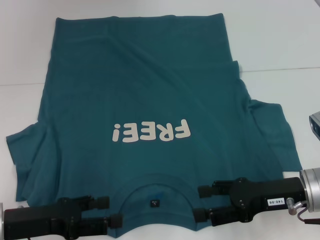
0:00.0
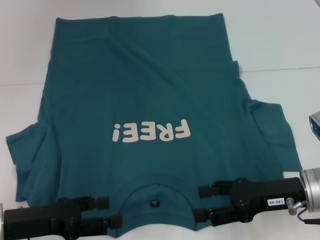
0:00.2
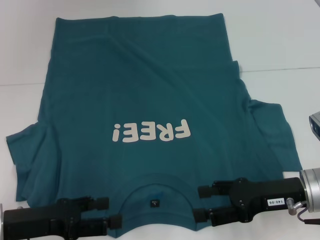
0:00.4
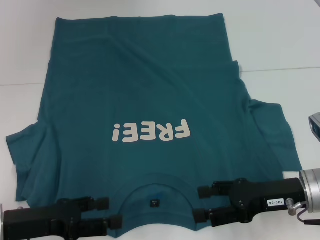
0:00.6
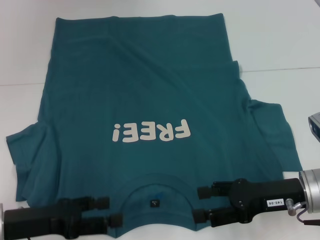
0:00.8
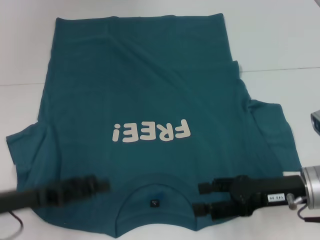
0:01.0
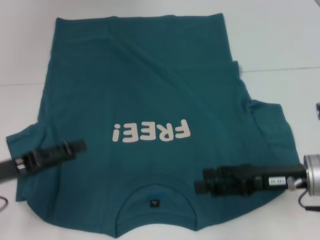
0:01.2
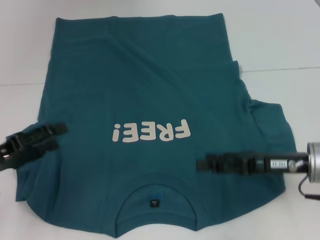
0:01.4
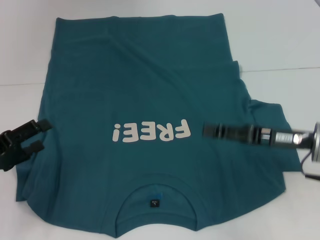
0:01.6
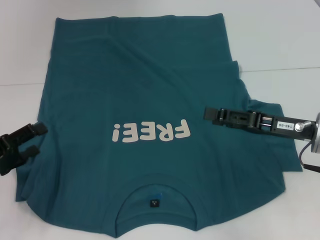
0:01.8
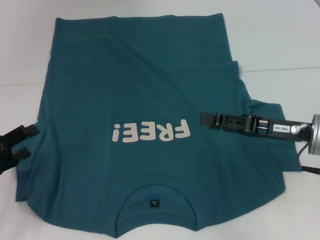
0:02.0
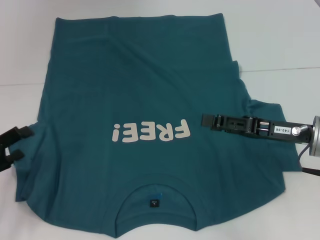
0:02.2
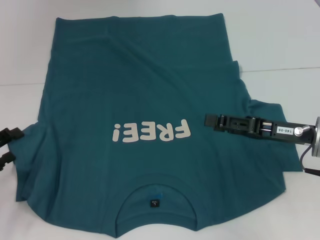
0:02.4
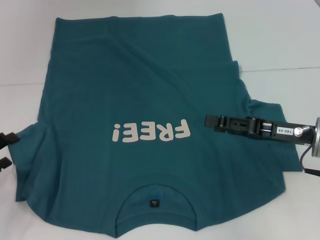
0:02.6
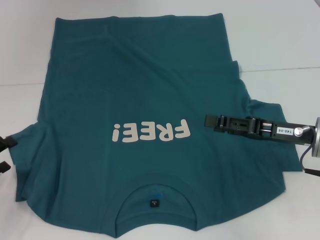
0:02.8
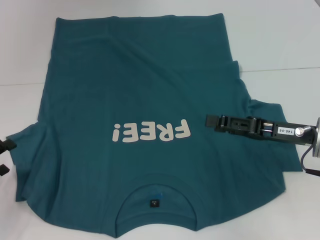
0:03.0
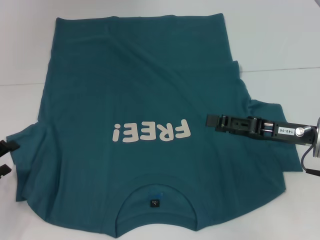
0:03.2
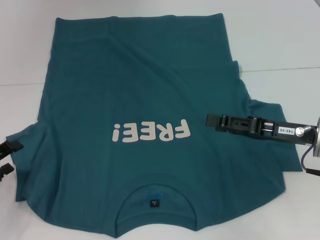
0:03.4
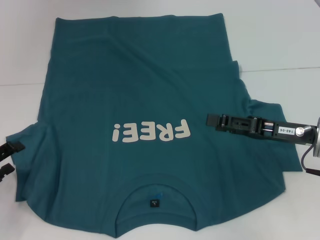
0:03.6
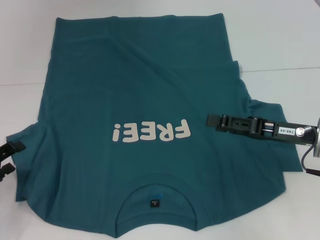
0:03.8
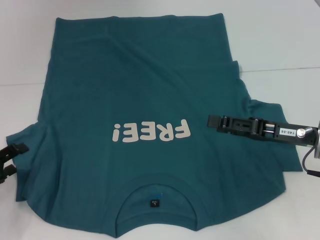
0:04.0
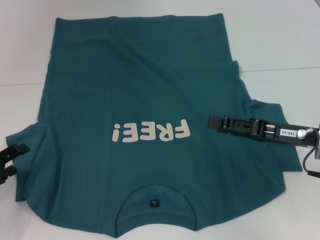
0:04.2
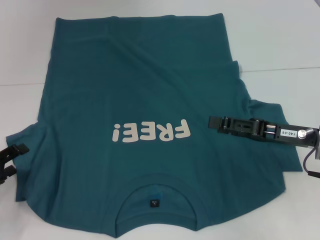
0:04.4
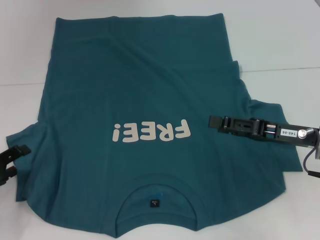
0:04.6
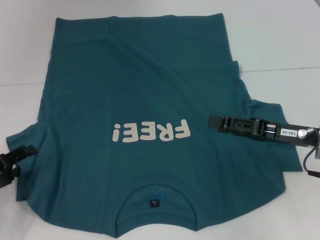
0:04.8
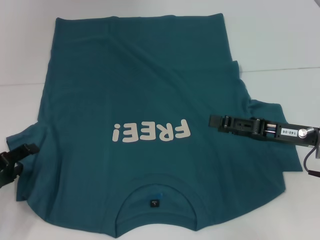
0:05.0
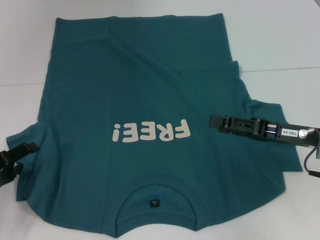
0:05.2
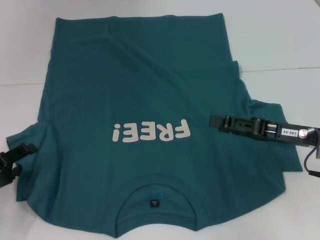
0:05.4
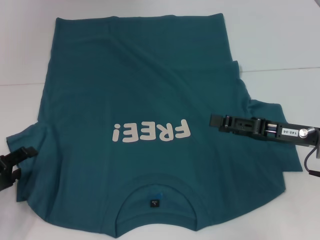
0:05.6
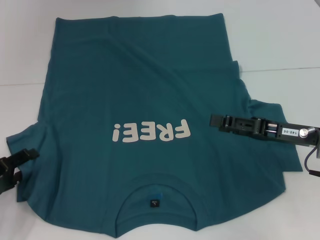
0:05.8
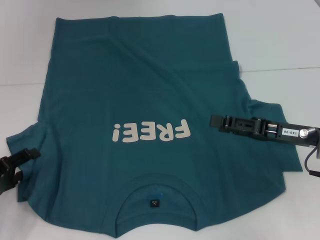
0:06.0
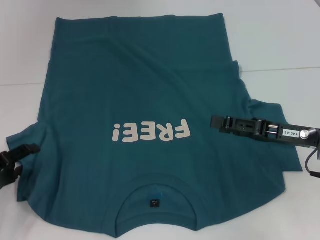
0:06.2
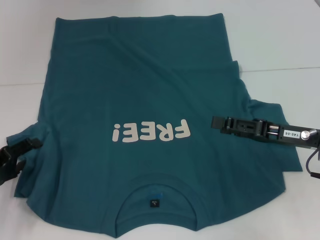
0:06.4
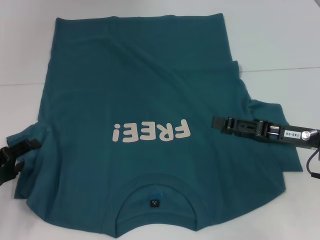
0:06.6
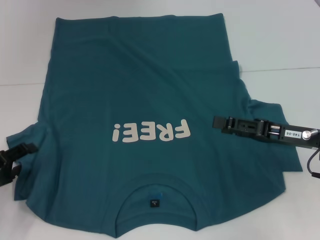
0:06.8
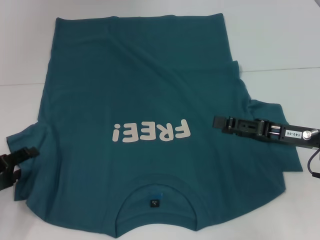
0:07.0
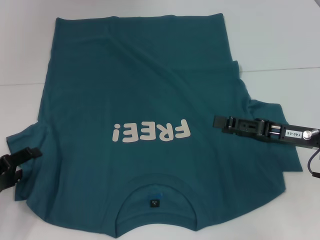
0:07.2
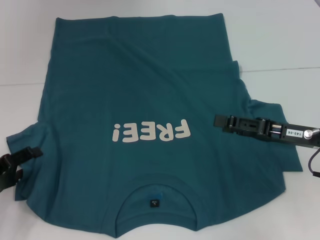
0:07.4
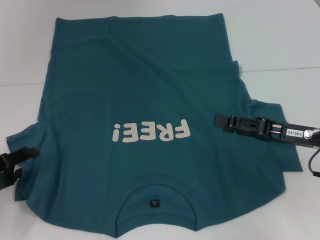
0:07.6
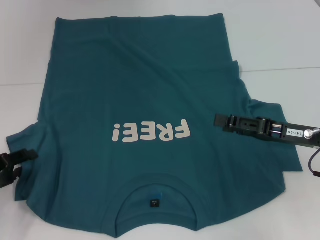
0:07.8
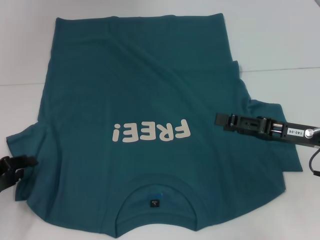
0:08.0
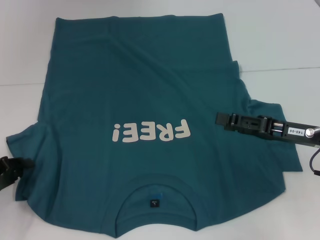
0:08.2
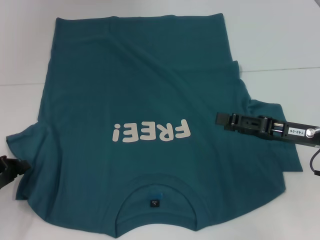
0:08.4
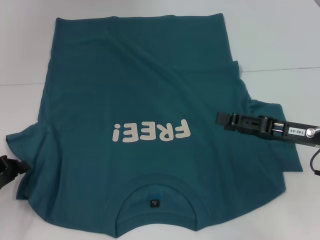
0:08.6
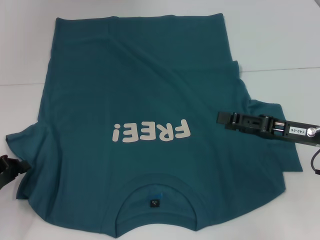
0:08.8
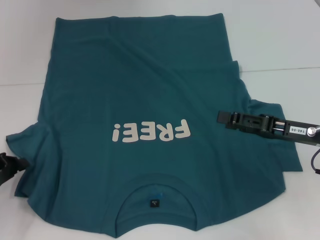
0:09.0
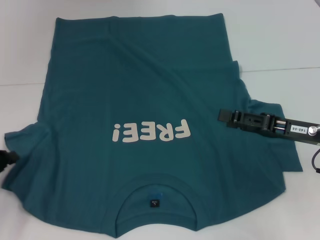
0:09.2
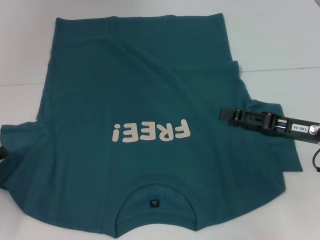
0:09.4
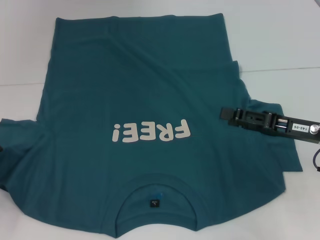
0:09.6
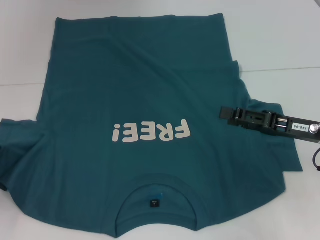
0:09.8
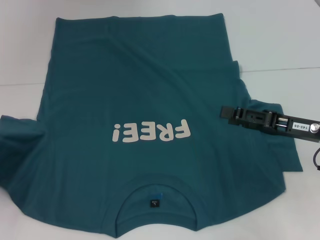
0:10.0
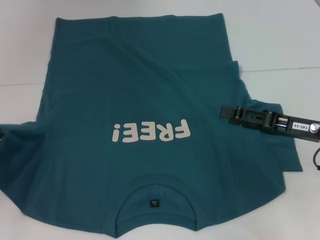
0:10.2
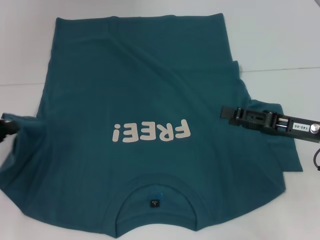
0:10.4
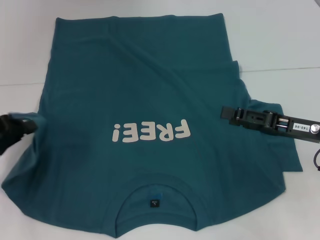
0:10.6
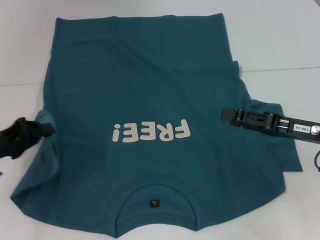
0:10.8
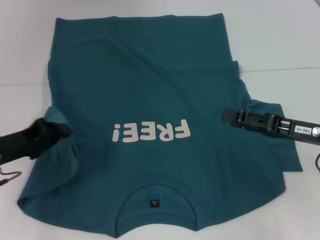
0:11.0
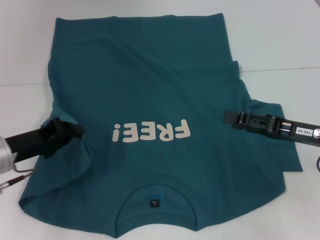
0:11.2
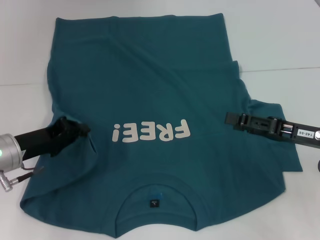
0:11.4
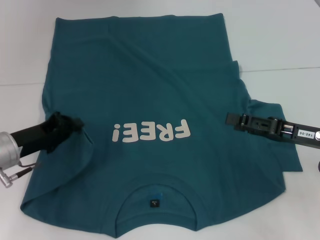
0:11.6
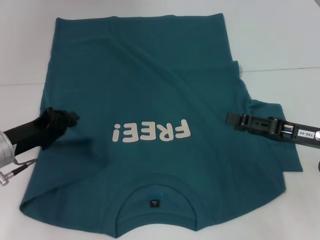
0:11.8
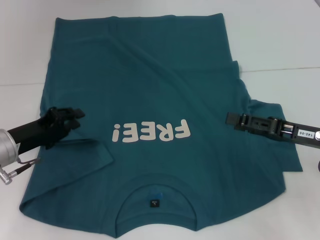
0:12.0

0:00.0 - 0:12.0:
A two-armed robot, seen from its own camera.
0:00.0 - 0:01.6: The left gripper moves to the left, roughly 5 cm.
0:01.6 - 0:04.4: The grippers stay close to where they were, moving slightly.
0:04.4 - 0:06.0: Both grippers stay put.
0:06.0 - 0:07.6: The grippers make only small movements.
0:07.6 - 0:09.0: The left gripper closes its fingers.
0:09.0 - 0:10.4: The left gripper goes roughly 5 cm upward.
0:10.4 - 0:12.0: The left gripper heads to the right, covering about 10 cm.

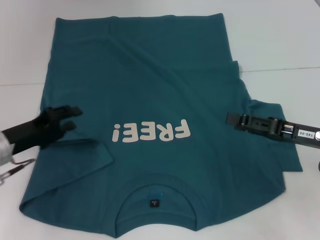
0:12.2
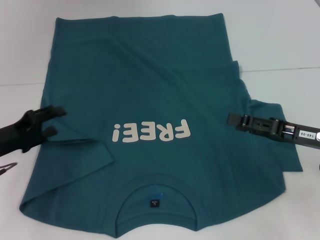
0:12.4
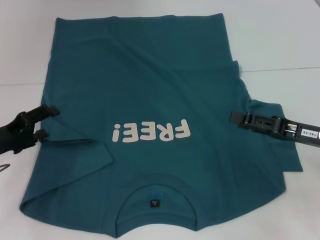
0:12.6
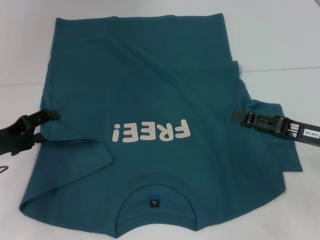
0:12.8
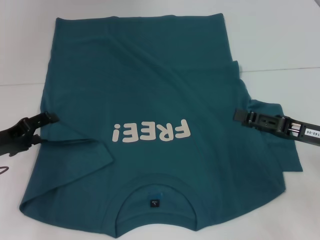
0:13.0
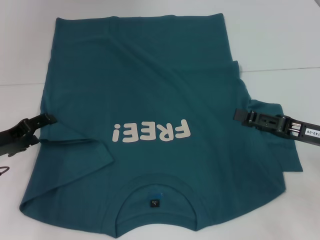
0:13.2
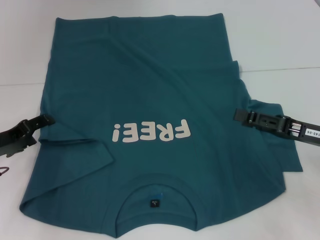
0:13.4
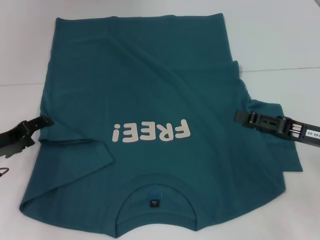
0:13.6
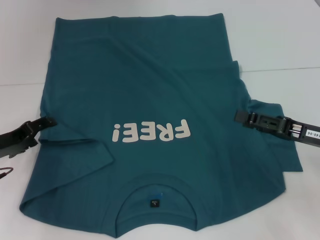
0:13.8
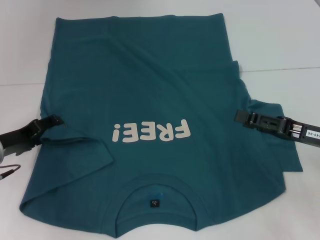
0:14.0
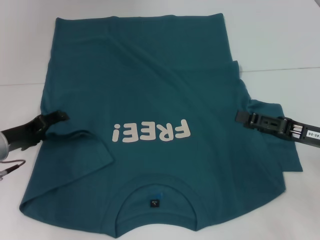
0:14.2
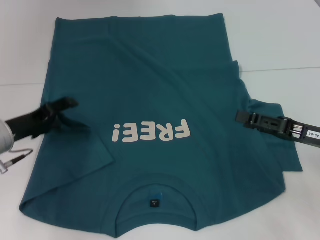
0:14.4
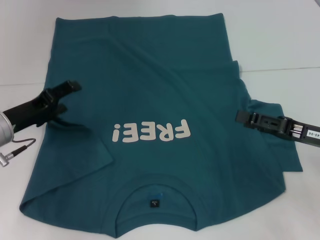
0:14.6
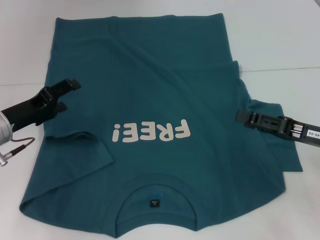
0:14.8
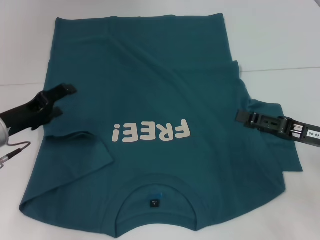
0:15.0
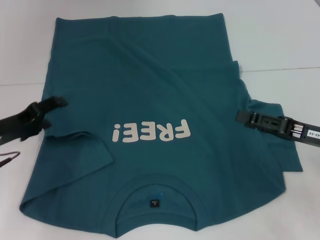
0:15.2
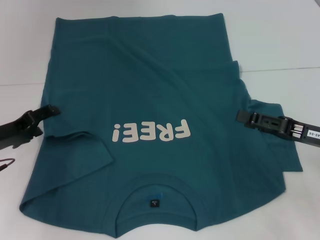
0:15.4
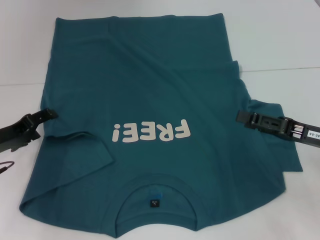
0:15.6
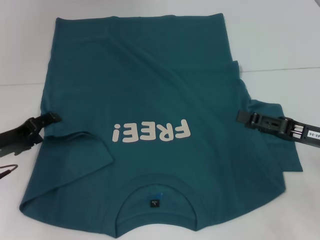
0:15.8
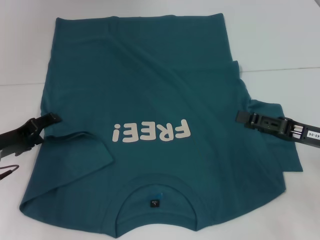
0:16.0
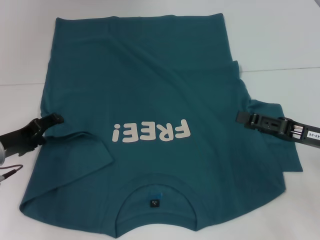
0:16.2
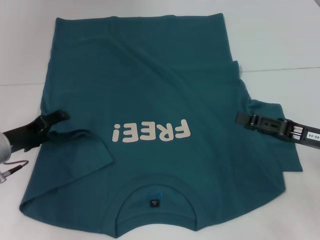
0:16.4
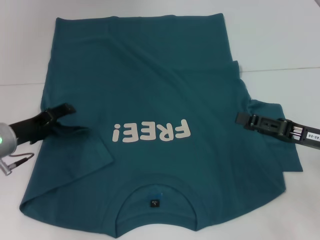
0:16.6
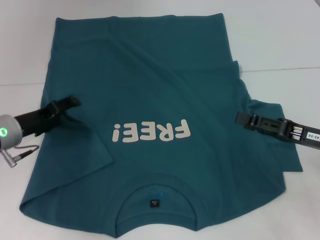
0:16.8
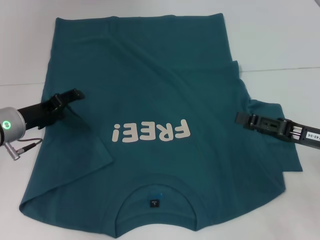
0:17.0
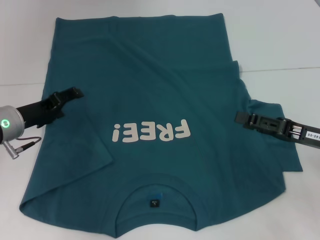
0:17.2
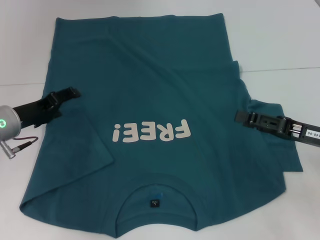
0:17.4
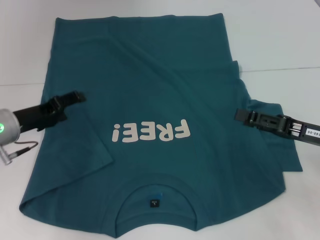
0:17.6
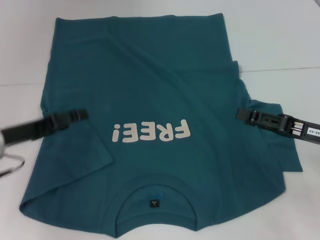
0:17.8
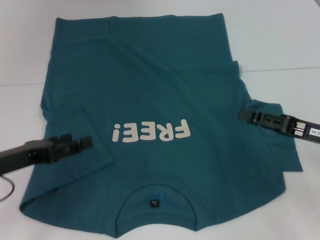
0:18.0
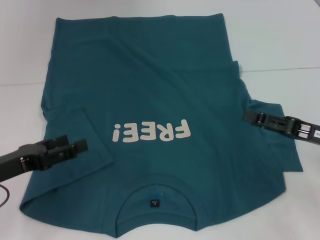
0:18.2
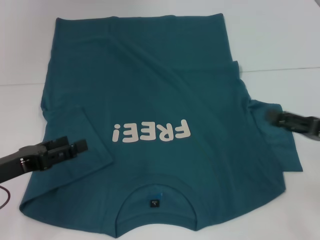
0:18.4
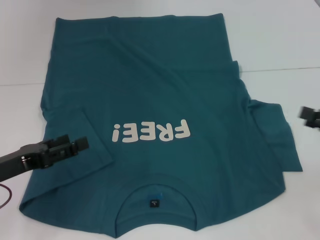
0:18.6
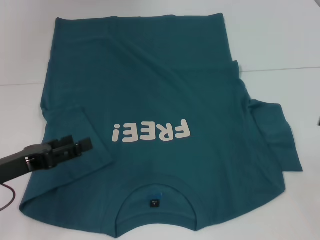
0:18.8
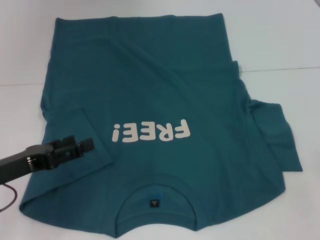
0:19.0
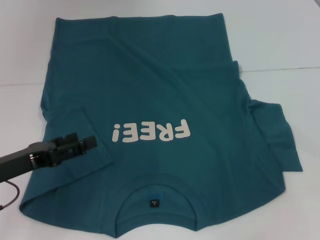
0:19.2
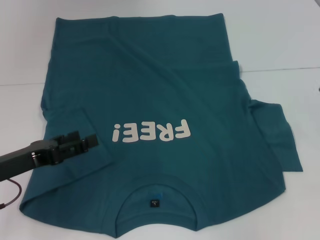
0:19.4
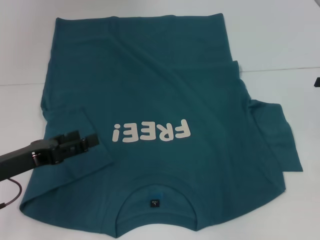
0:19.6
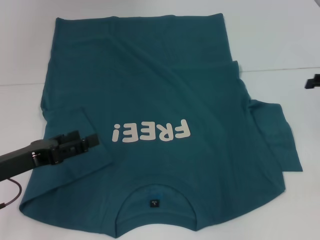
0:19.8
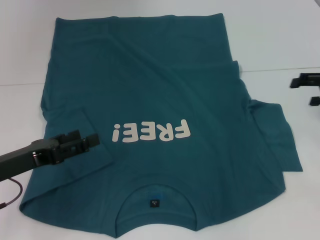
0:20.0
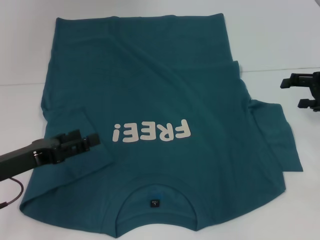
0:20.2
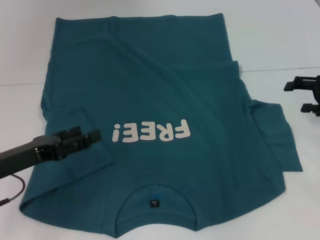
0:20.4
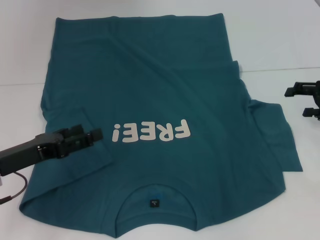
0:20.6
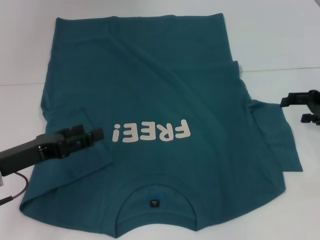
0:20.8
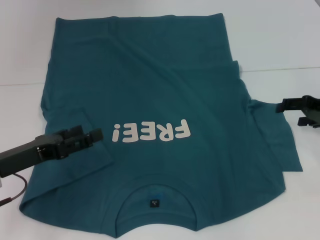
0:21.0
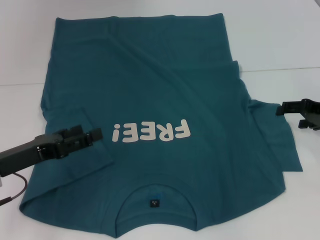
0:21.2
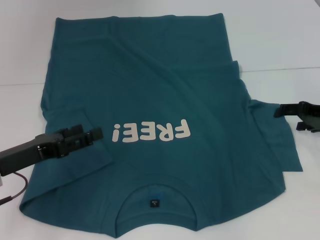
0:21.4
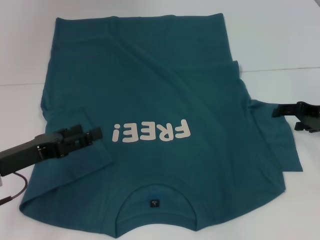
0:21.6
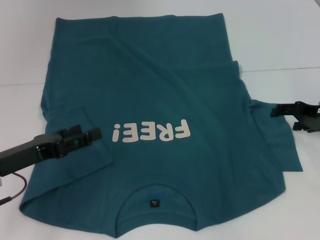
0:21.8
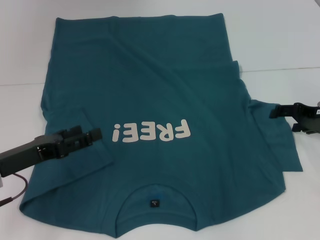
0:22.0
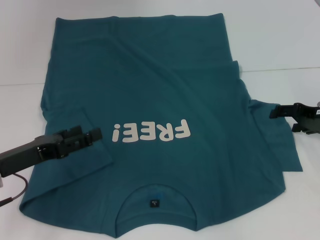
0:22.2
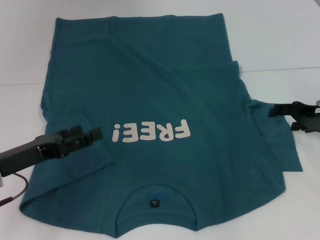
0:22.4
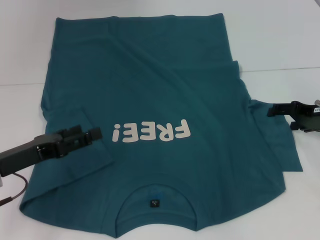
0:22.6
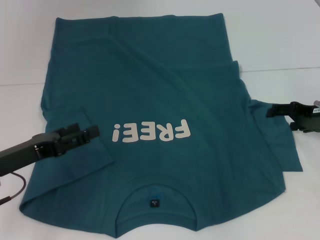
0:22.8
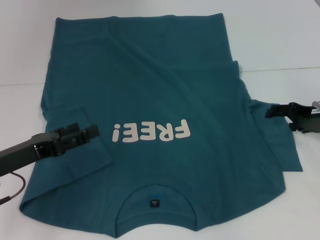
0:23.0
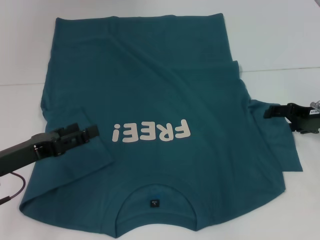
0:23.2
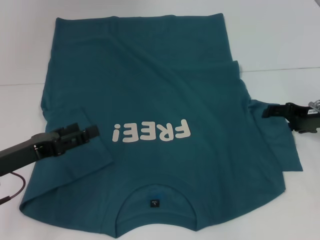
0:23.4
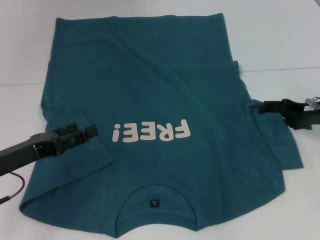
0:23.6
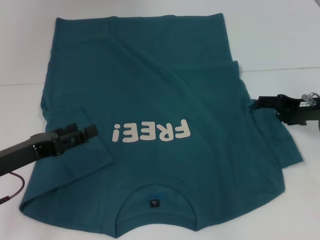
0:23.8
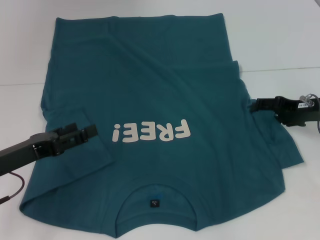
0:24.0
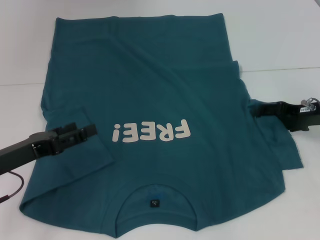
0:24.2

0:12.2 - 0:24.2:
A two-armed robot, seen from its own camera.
Step, 0:12.2 - 0:17.2: Fold the bottom left sleeve with your left hand.
0:12.2 - 0:13.8: The left gripper opens up.
0:13.8 - 0:16.6: The grippers make only small movements.
0:16.6 - 0:18.2: The left gripper moves backward, approximately 10 cm.
0:18.2 - 0:19.8: The right gripper heads to the right, forward and upward, covering approximately 15 cm.
0:19.8 - 0:21.2: The right gripper goes approximately 5 cm downward.
0:22.6 - 0:24.2: The grippers stay close to where they were, moving slightly.
